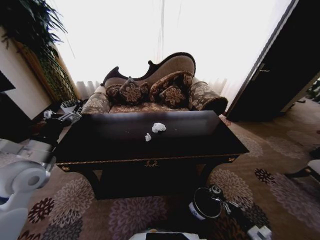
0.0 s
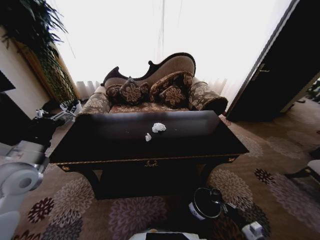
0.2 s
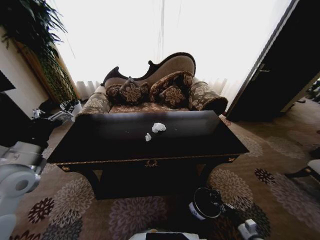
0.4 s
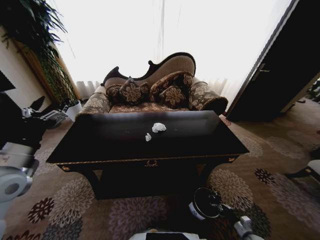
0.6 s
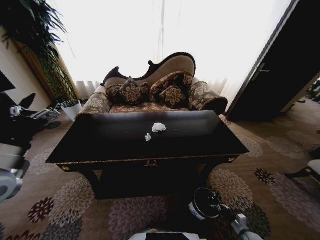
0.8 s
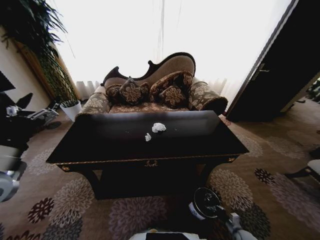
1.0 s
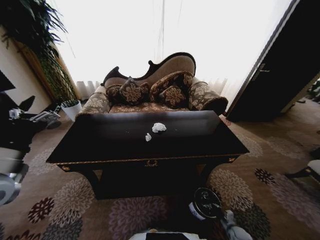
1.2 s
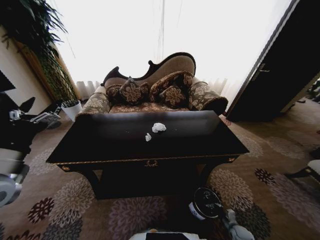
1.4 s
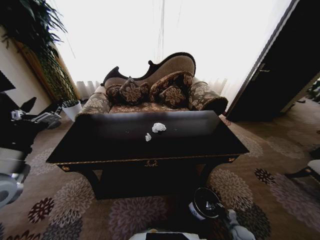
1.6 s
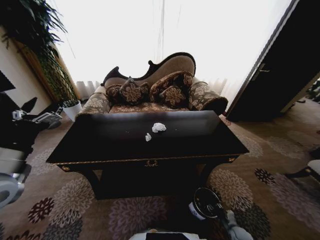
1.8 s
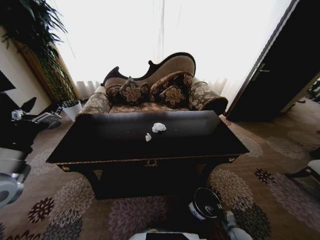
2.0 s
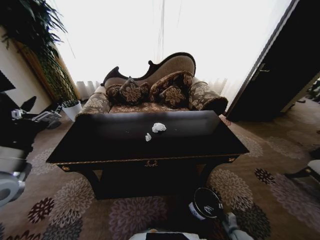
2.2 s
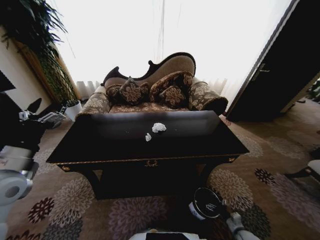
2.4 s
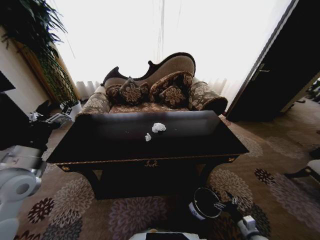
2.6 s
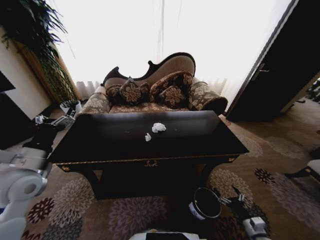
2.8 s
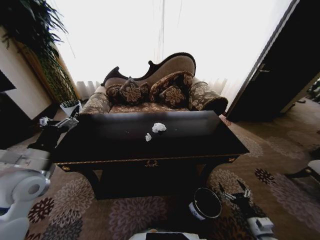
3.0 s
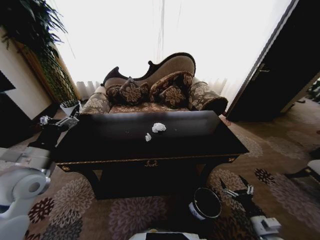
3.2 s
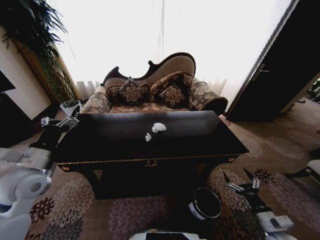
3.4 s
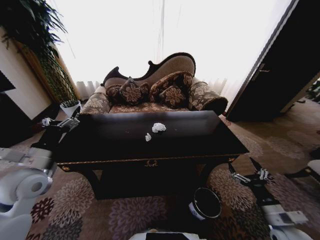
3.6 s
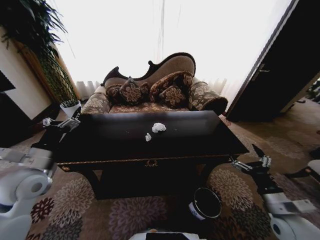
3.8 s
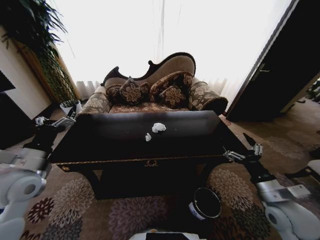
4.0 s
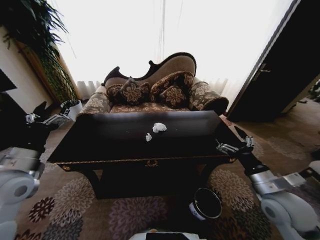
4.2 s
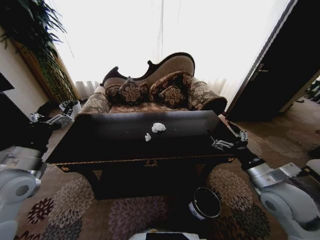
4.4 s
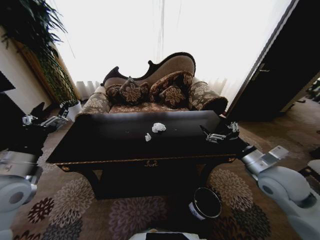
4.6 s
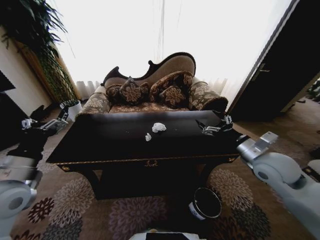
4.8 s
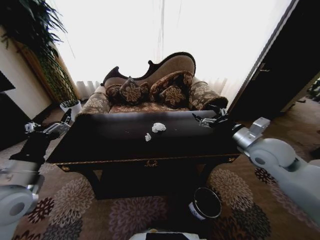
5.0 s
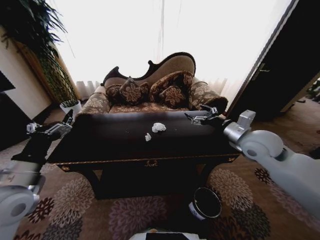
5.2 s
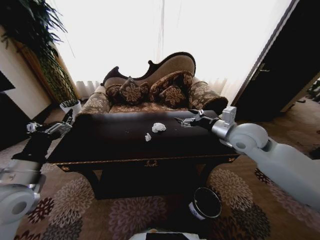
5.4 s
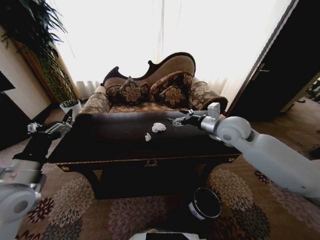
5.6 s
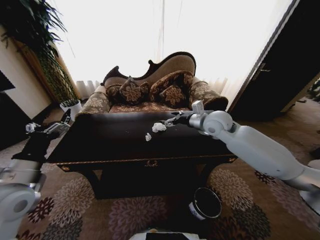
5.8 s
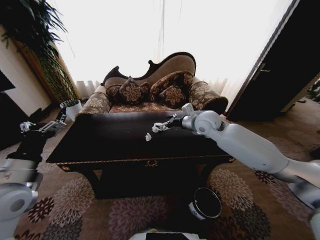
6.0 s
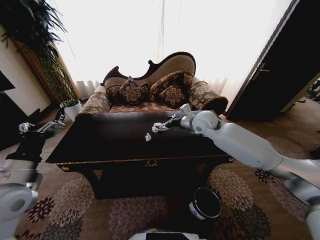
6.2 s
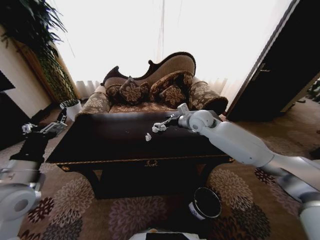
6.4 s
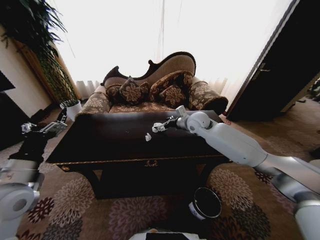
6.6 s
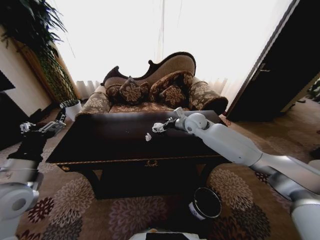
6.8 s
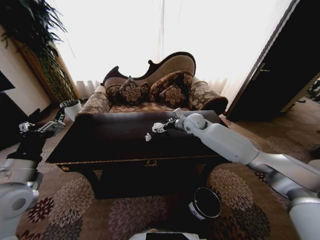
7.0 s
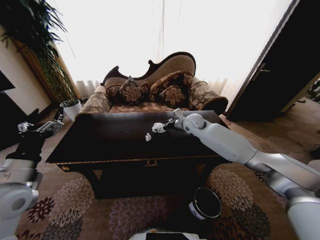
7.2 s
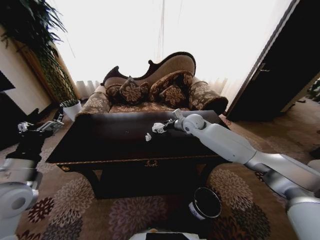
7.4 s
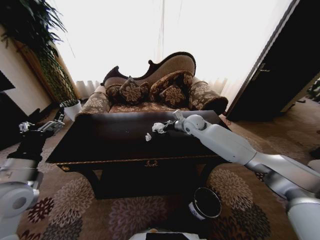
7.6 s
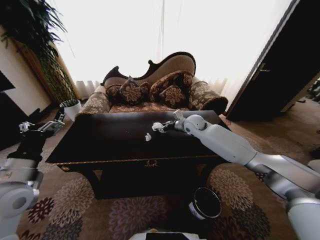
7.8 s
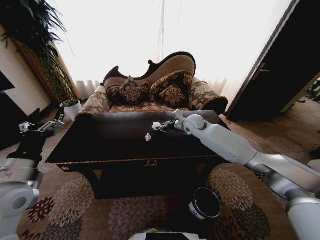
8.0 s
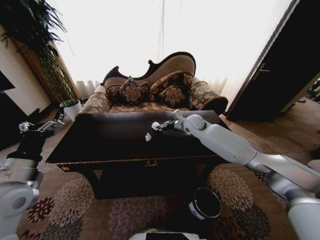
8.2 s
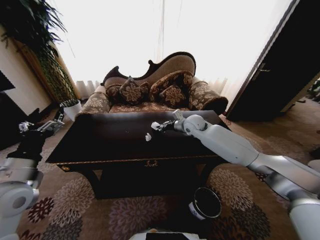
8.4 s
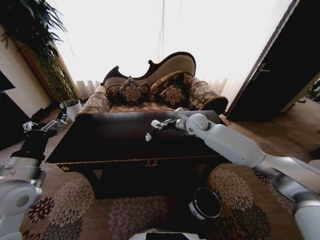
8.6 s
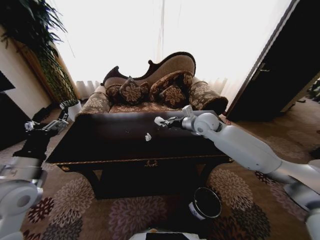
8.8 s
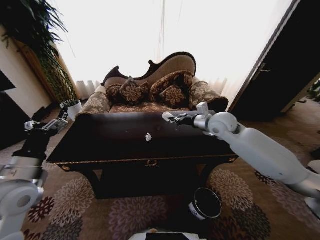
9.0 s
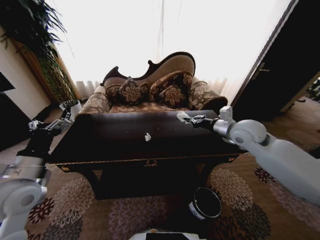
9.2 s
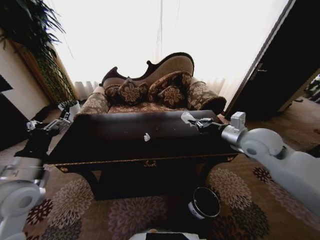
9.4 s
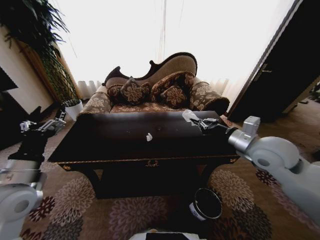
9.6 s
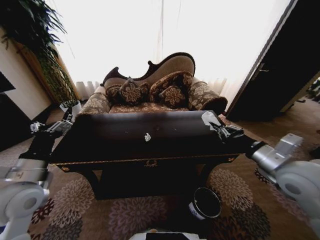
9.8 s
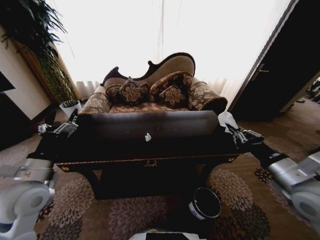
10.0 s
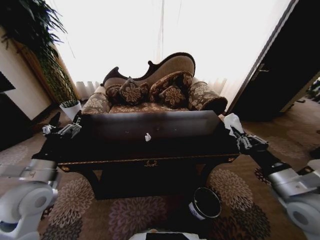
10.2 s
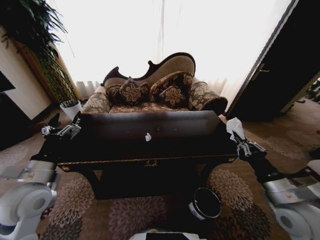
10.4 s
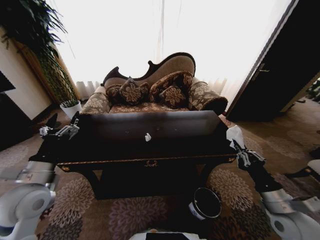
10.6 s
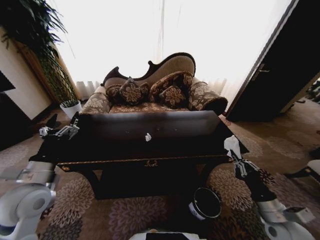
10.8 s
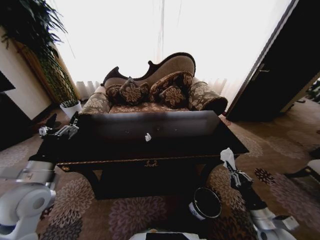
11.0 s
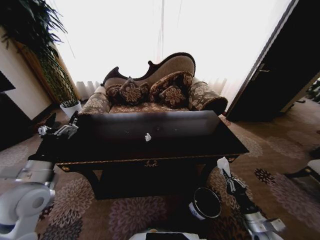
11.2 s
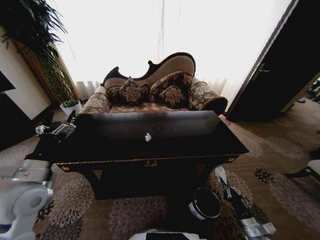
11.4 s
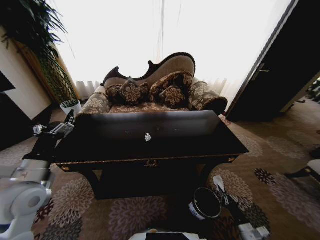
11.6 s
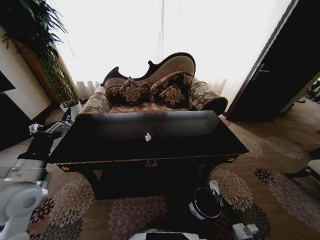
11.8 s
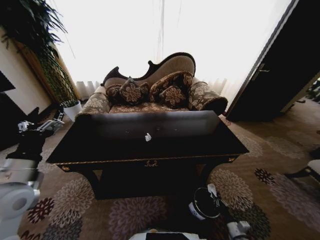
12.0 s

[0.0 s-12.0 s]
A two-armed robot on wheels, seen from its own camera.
Task of the whole recording: Move to the front of the table and place the trash on the table into the trash bin.
0.0 to 1.6 s: The right gripper goes about 15 cm downward and forward. Meanwhile the left gripper is displaced backward by about 5 cm.
1.6 to 3.0 s: The left gripper moves roughly 5 cm; the right gripper shifts about 20 cm upward, and opens up.
3.0 to 4.4 s: The right gripper travels upward by roughly 25 cm.
4.4 to 6.0 s: The right gripper goes some 30 cm forward and to the left.
6.0 to 7.6 s: The right gripper travels forward and downward by approximately 10 cm.
7.6 to 9.0 s: The right gripper heads backward, to the right and upward, covering roughly 15 cm, and closes.
9.0 to 10.4 s: The right gripper moves backward and to the right, about 30 cm.
10.4 to 12.0 s: The right gripper goes about 40 cm downward.

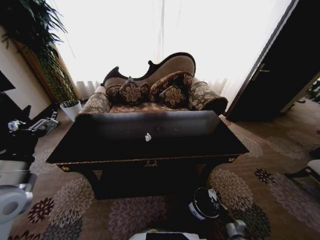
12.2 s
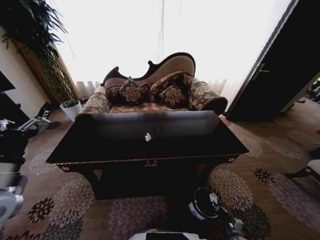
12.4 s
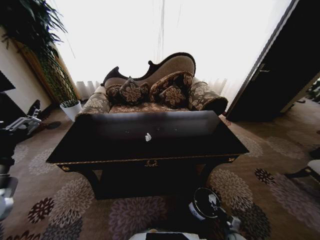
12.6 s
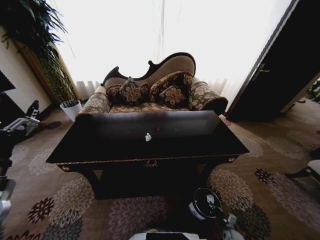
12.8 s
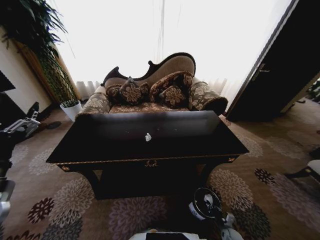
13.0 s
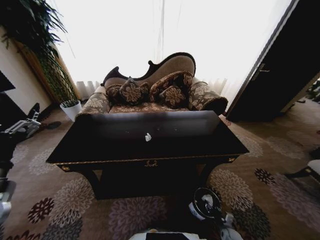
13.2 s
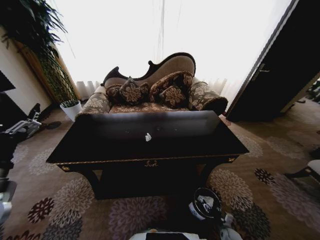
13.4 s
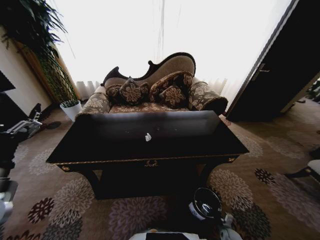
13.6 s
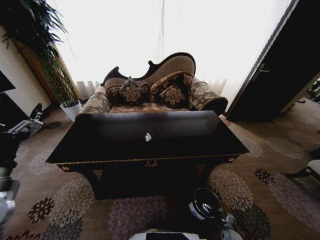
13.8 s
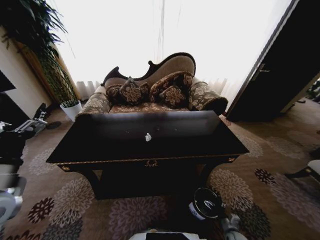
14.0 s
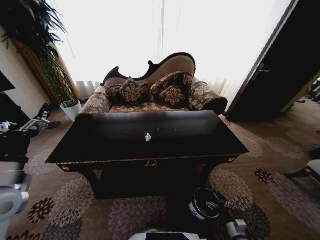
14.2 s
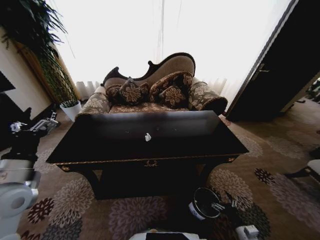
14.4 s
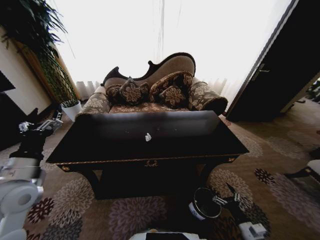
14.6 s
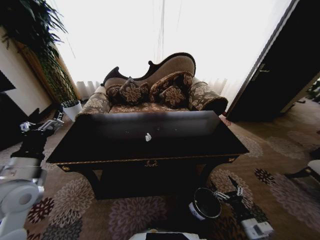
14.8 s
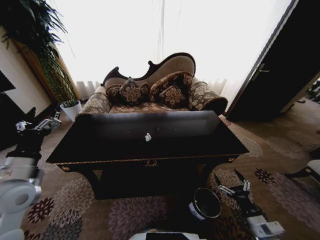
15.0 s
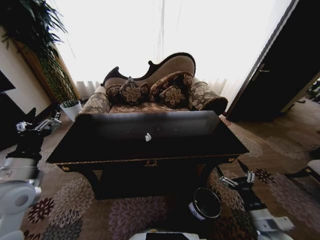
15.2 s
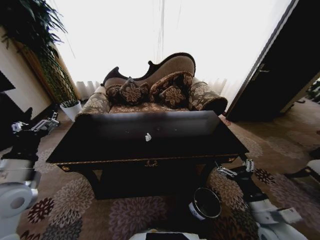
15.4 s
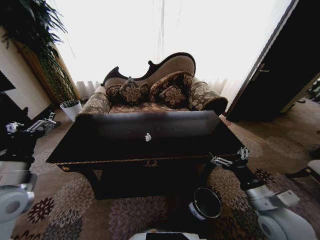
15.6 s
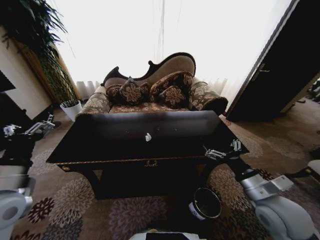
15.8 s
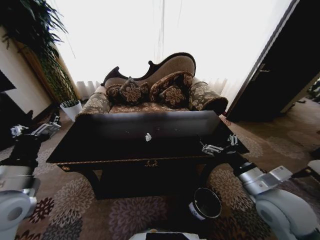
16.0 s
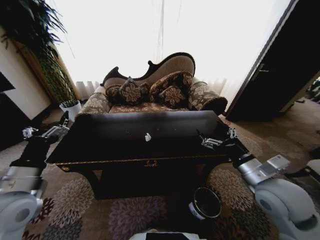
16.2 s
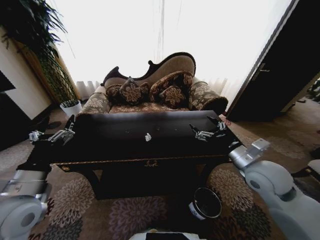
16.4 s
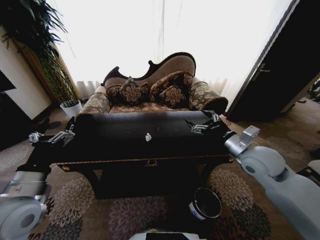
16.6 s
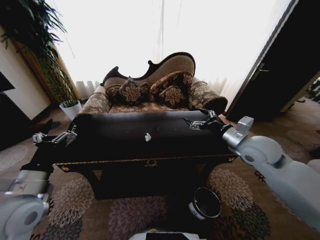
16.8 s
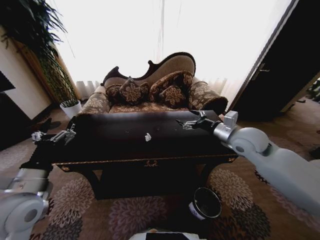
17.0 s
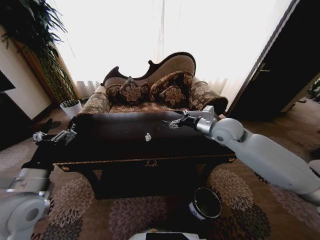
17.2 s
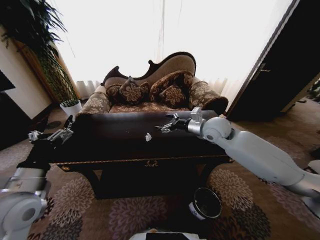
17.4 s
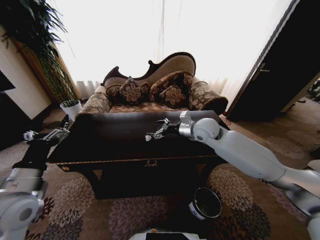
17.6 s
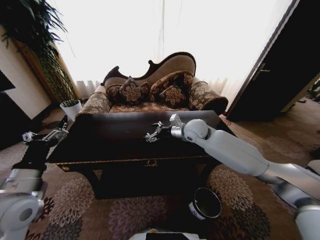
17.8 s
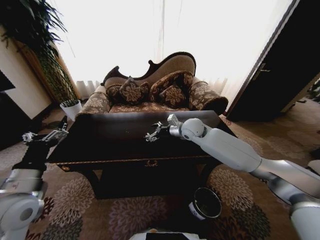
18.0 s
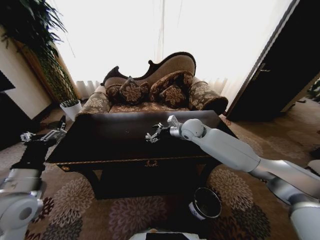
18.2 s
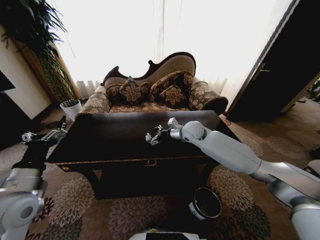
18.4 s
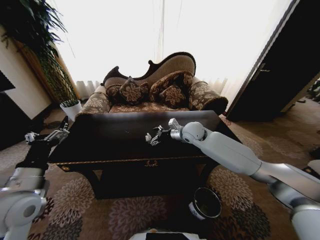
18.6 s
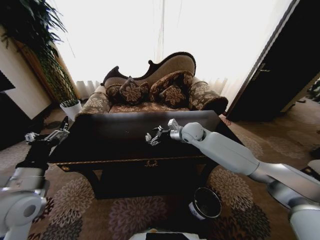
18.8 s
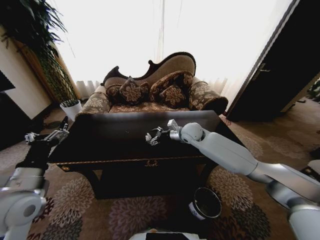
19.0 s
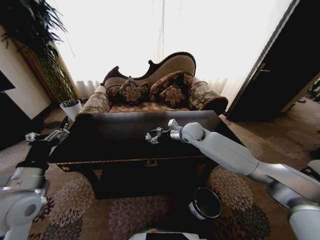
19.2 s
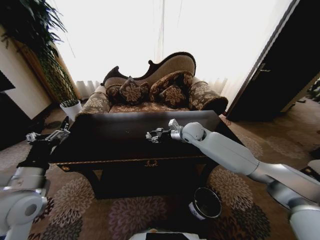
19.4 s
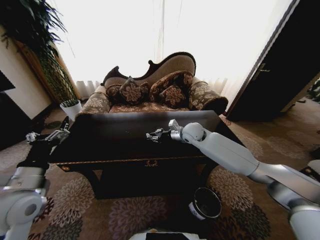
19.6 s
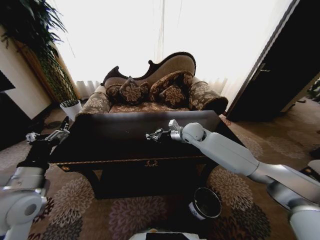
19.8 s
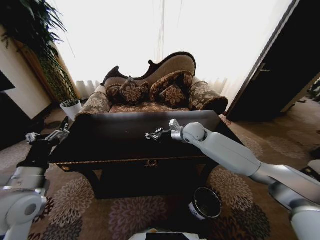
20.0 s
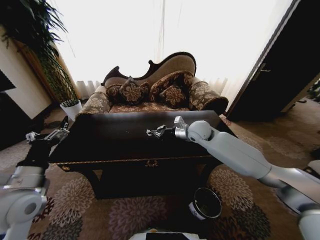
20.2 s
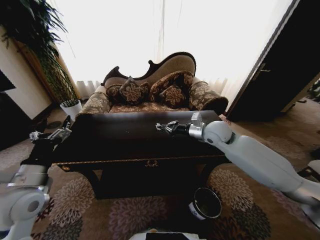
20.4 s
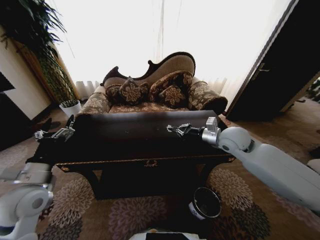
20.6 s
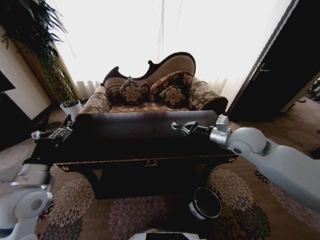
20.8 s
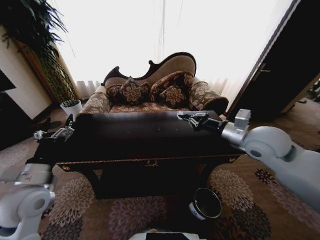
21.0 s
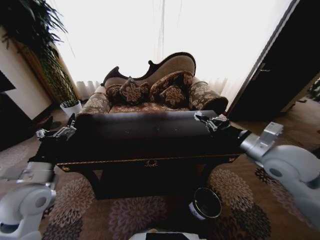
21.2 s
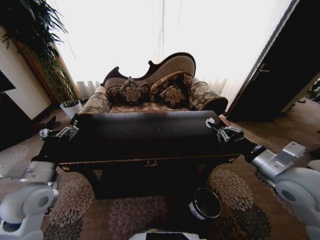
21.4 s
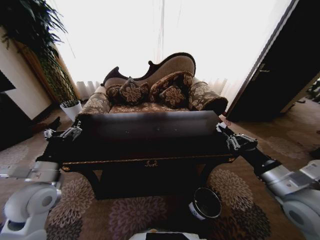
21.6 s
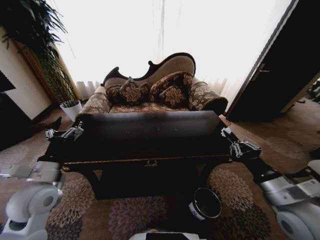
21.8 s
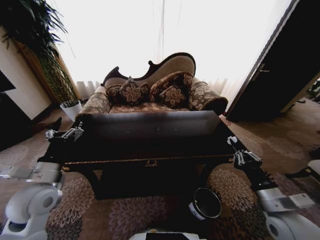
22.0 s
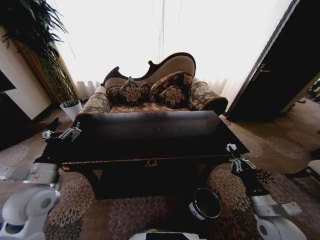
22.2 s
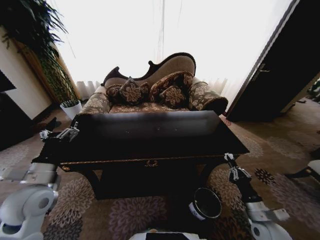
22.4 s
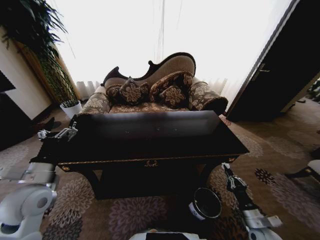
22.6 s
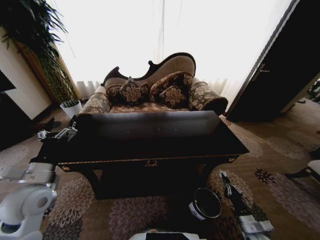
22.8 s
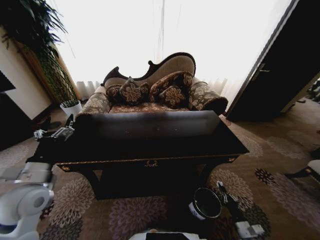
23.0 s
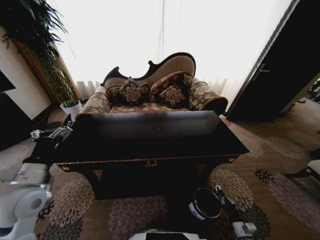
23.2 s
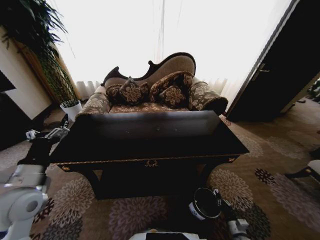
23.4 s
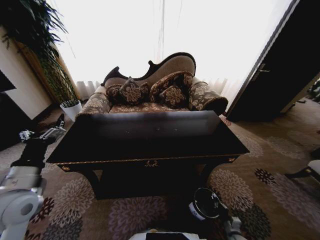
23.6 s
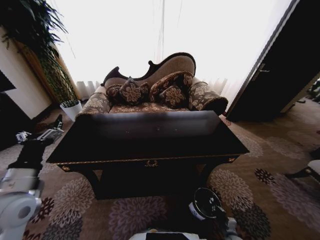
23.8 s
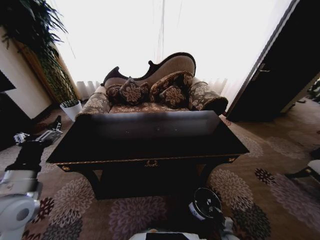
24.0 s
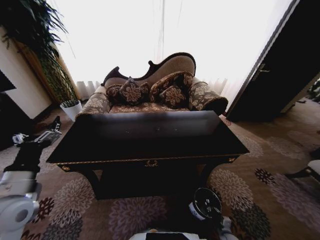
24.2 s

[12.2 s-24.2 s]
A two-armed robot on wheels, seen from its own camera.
Task of the whole recording: Move to the front of the table and place the trash on the table into the trash bin.
12.2 to 13.8 s: The right gripper shifts by about 5 cm, and opens up.
13.8 to 15.2 s: The left gripper shifts by roughly 5 cm. Meanwhile the right gripper goes roughly 35 cm upward.
15.2 to 16.6 s: The left gripper shifts by some 5 cm. The right gripper is displaced upward and forward by some 25 cm.
16.6 to 18.2 s: The right gripper travels forward and to the left by approximately 25 cm.
18.2 to 19.8 s: The right gripper closes.
19.8 to 21.2 s: The right gripper travels backward, to the right and upward by roughly 30 cm.
21.2 to 22.6 s: The right gripper travels downward and backward by approximately 35 cm.
22.6 to 24.2 s: The right gripper shifts roughly 25 cm downward.
